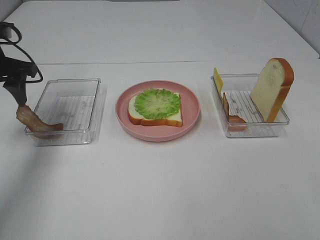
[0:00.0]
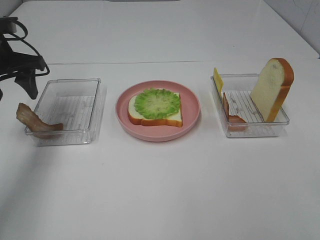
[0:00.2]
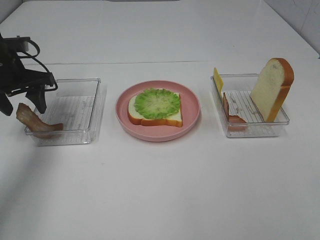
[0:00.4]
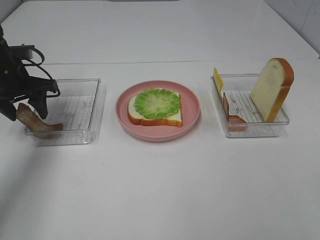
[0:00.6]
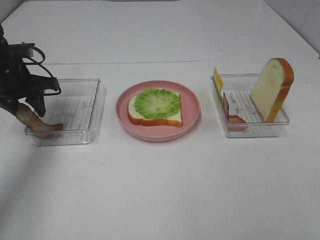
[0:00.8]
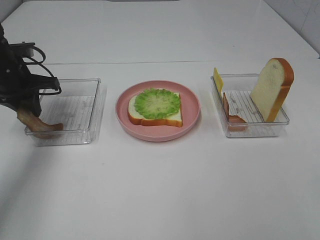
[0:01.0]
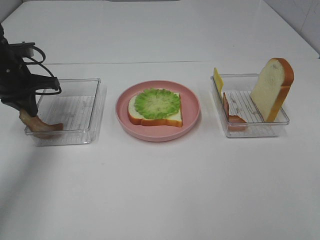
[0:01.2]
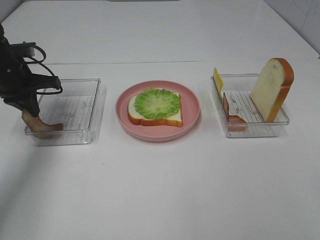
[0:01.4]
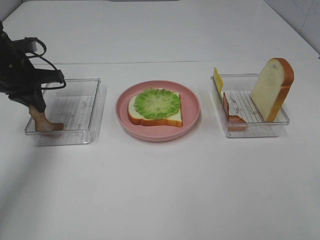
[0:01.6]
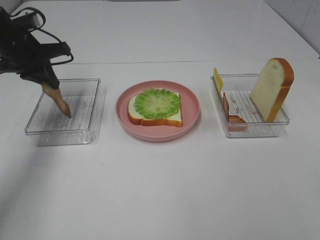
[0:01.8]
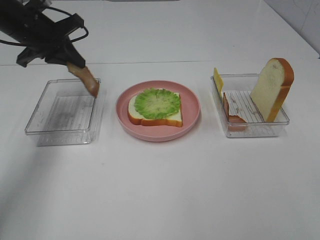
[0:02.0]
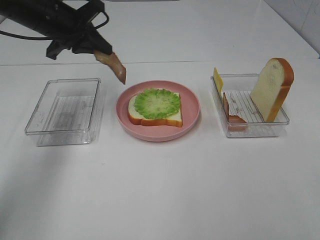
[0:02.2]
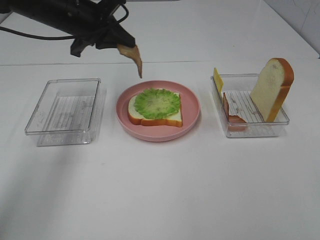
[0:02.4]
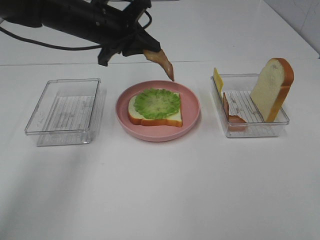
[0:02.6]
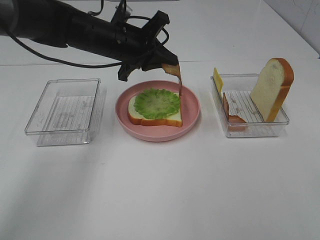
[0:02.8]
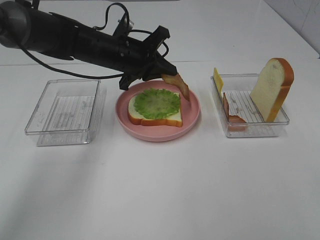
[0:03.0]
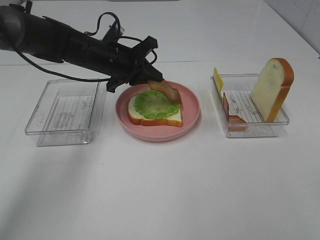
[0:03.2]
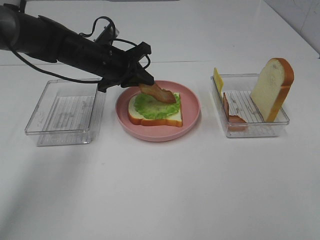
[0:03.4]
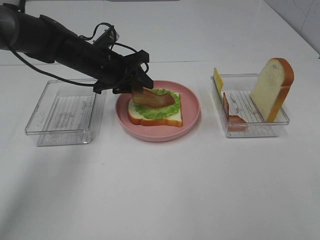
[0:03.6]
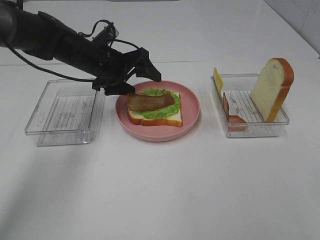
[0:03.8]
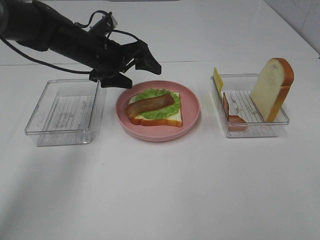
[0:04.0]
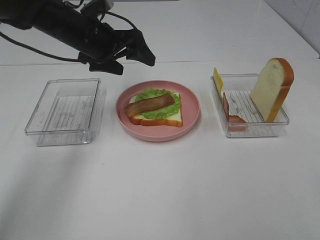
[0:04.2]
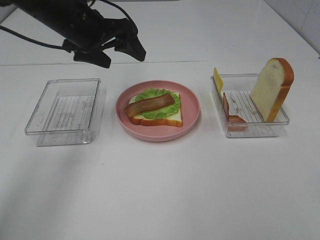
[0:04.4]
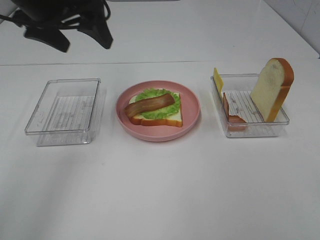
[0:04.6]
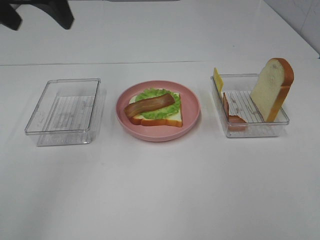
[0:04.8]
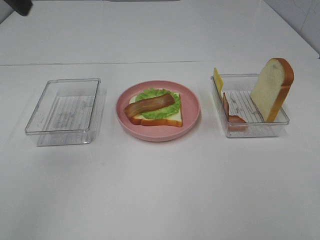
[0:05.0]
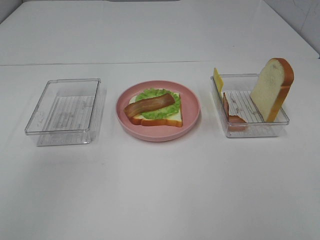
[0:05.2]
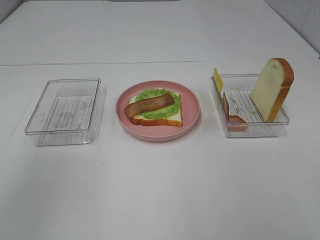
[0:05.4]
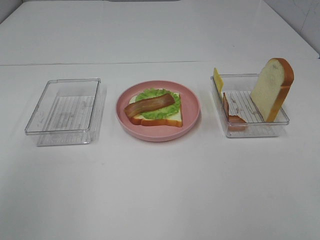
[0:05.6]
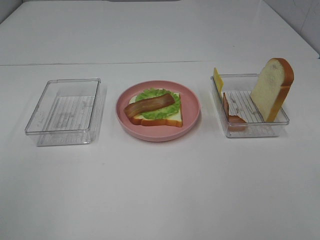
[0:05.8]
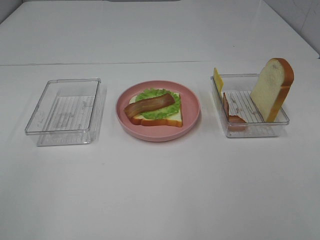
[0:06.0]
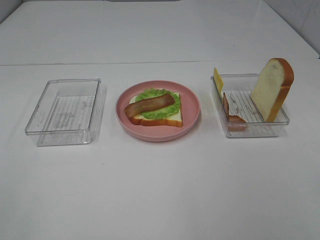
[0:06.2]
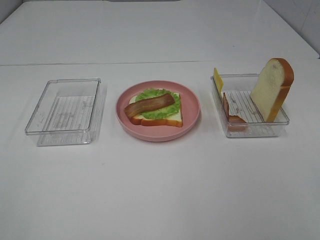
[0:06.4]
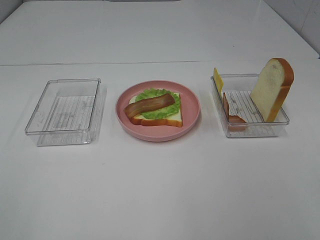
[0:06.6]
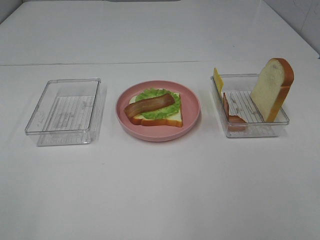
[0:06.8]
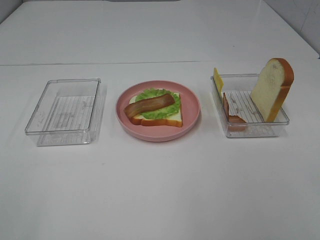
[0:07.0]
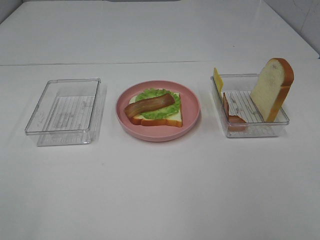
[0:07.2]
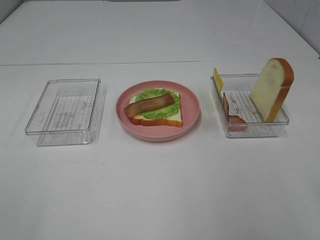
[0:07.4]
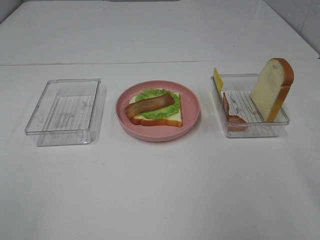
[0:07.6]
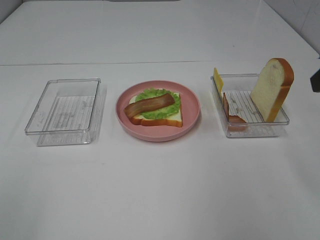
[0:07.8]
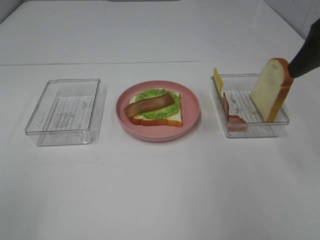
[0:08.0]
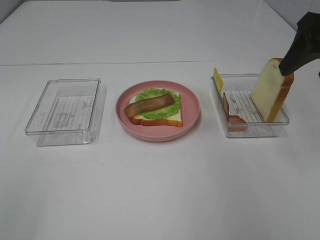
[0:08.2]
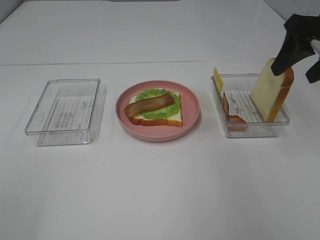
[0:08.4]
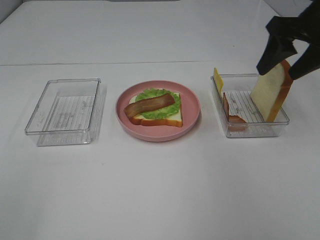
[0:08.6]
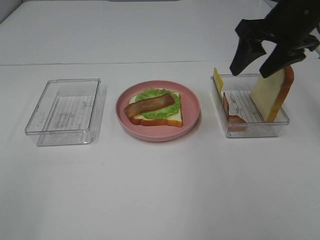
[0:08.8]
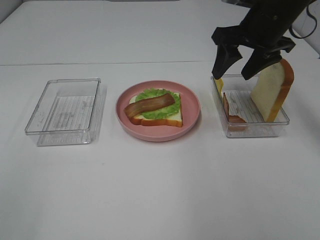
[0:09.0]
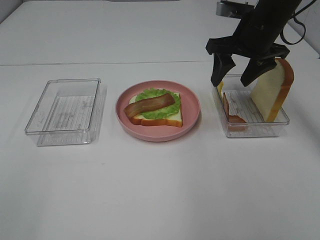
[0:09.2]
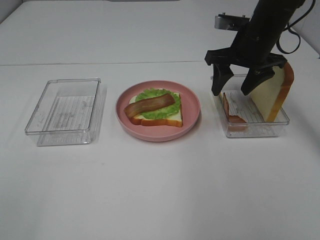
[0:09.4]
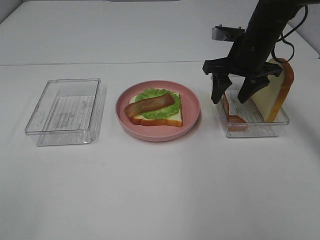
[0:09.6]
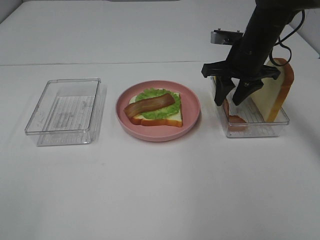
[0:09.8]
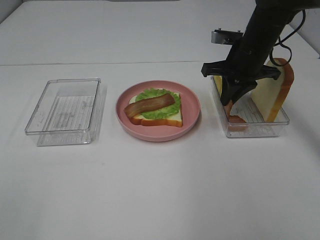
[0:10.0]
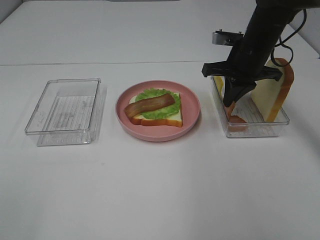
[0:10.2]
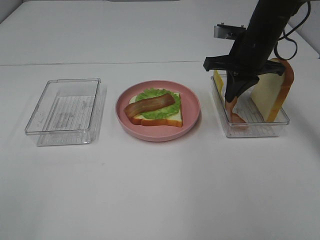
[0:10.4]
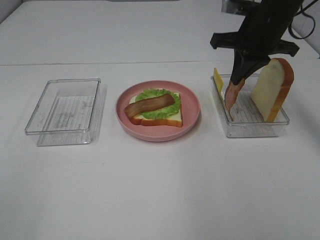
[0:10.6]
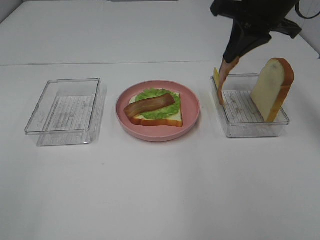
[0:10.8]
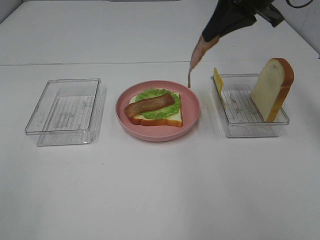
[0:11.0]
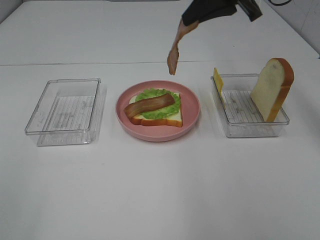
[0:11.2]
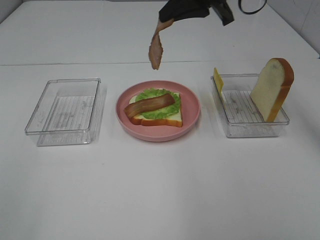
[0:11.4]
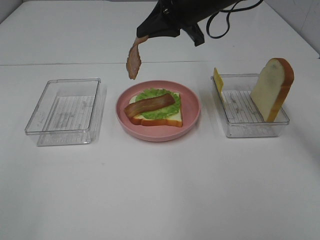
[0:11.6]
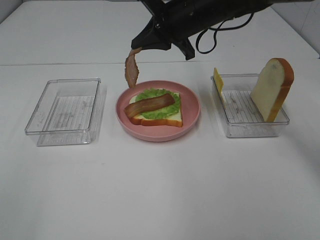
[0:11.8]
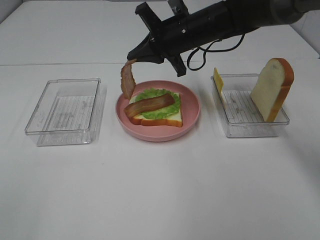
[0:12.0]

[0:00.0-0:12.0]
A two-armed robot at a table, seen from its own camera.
Task of the whole recording: Make sandwiches.
Step, 1.6 to 3.8 s: Left hand:place bacon on lettuce slice.
Step, 4.0 to 10.4 s: Right hand:grab the bacon.
0.0 to 1.6 s: The left gripper shifts by roughly 5 cm, and closes its fingers.
1.6 to 3.0 s: The left gripper goes approximately 20 cm to the right.
3.0 to 4.4 s: The left gripper heads upward and to the left, covering roughly 10 cm, and opens up.
4.4 to 6.0 s: The left gripper goes approximately 40 cm backward and to the left.
7.6 to 9.0 s: The right gripper moves forward and to the left, some 25 cm.
9.0 to 10.4 s: The right gripper closes.
10.4 to 12.0 s: The right gripper heads to the left, covering approximately 10 cm, and moves approximately 15 cm upward and comes back.

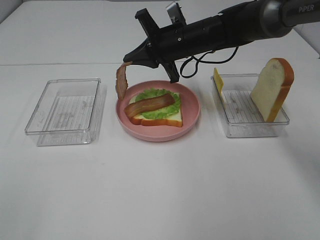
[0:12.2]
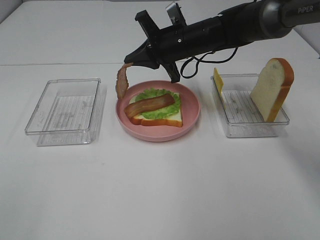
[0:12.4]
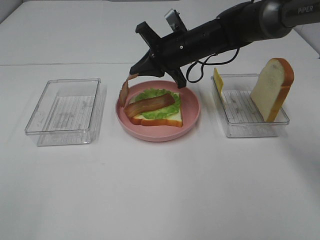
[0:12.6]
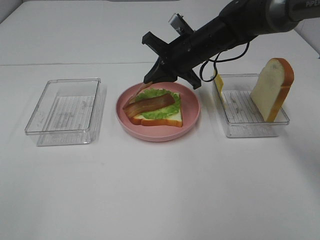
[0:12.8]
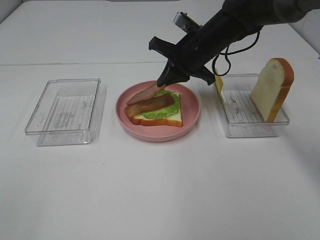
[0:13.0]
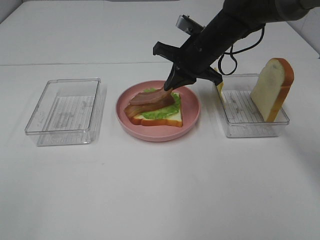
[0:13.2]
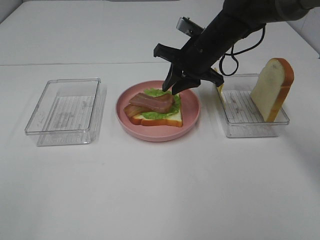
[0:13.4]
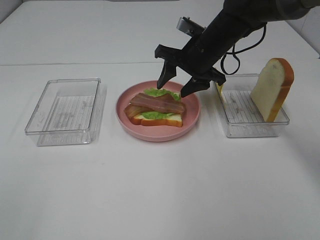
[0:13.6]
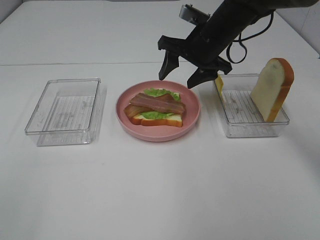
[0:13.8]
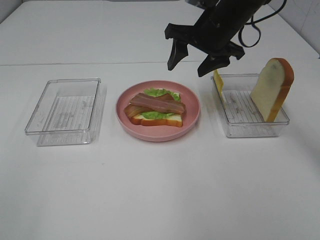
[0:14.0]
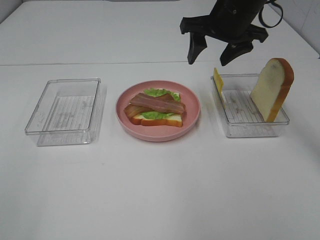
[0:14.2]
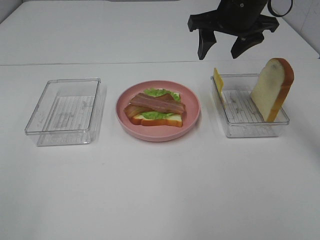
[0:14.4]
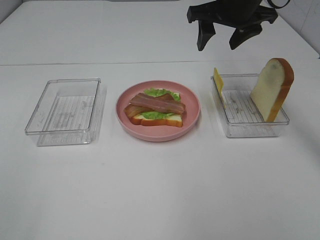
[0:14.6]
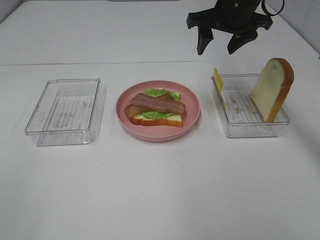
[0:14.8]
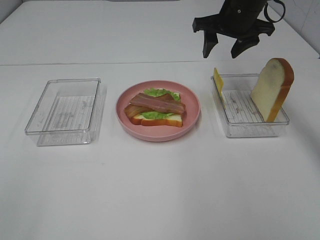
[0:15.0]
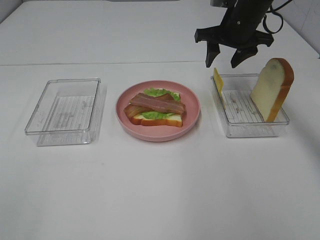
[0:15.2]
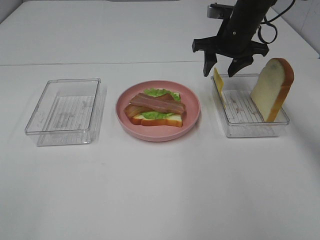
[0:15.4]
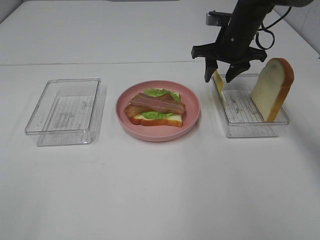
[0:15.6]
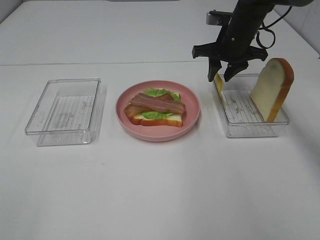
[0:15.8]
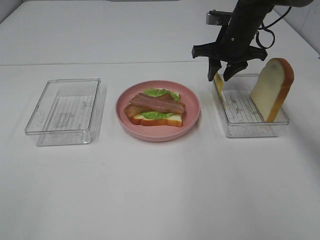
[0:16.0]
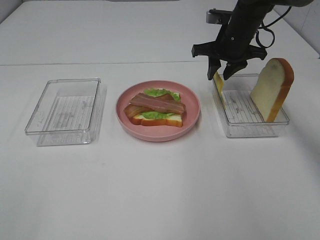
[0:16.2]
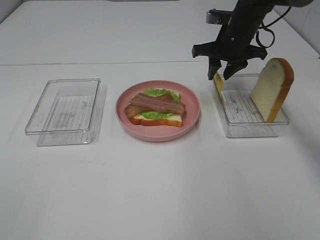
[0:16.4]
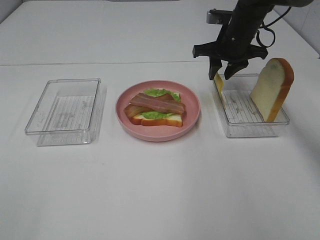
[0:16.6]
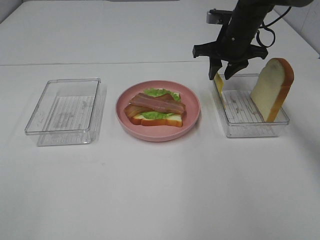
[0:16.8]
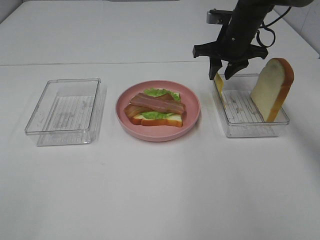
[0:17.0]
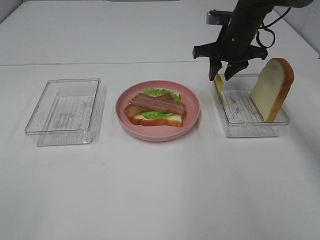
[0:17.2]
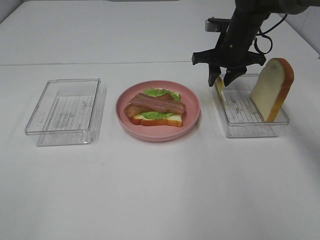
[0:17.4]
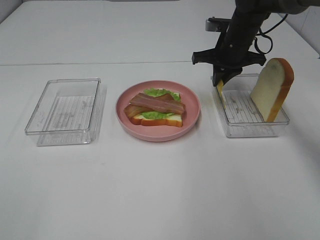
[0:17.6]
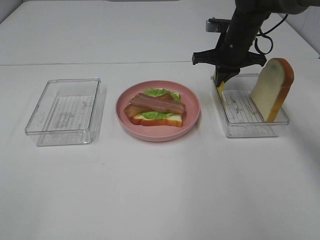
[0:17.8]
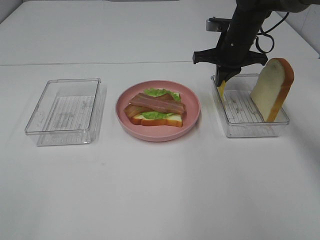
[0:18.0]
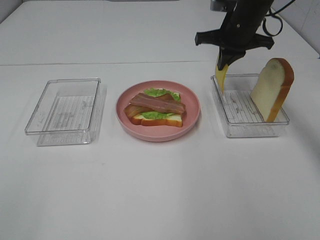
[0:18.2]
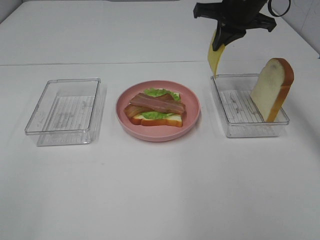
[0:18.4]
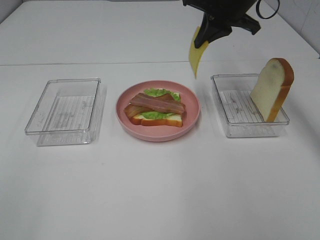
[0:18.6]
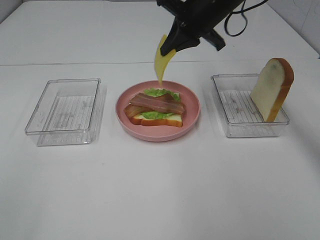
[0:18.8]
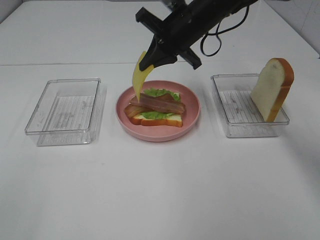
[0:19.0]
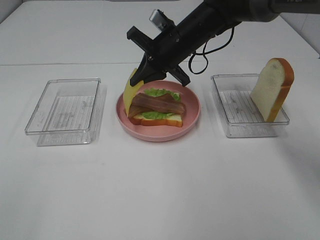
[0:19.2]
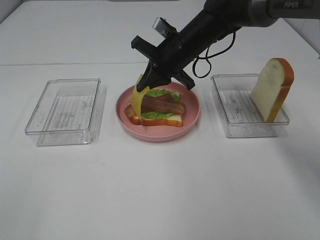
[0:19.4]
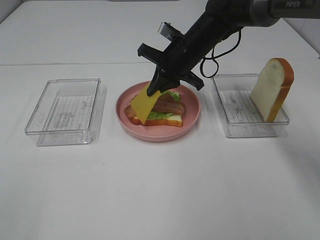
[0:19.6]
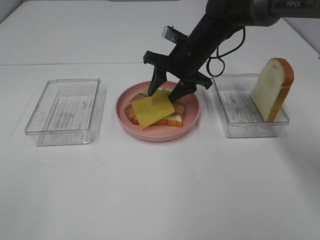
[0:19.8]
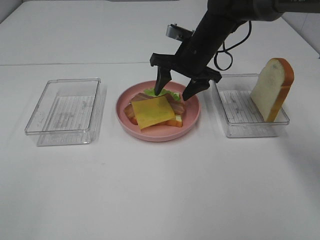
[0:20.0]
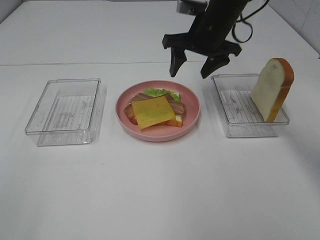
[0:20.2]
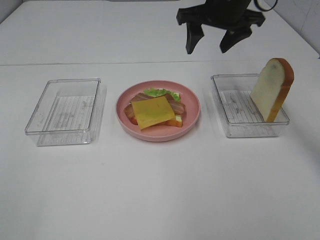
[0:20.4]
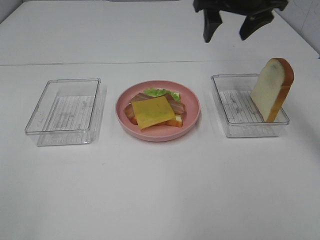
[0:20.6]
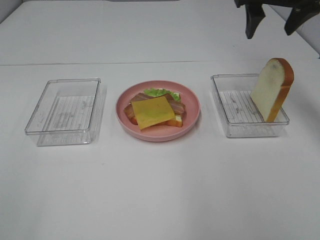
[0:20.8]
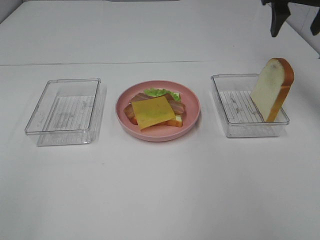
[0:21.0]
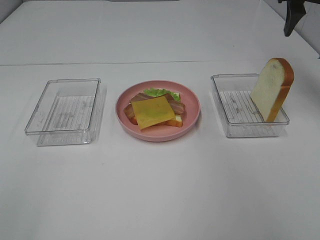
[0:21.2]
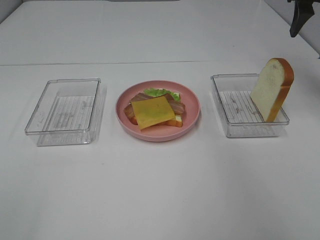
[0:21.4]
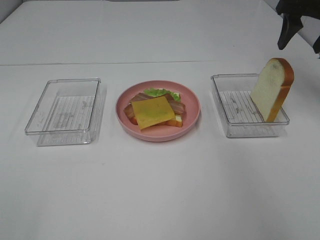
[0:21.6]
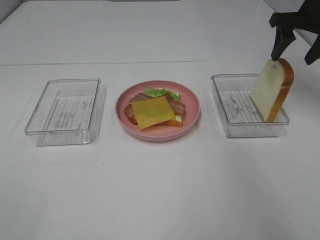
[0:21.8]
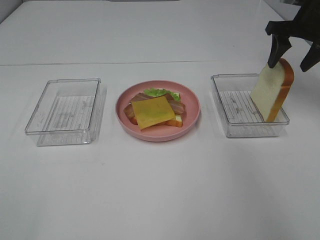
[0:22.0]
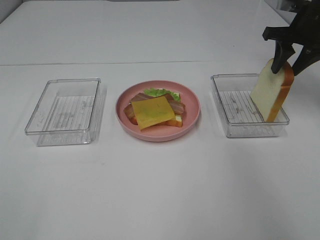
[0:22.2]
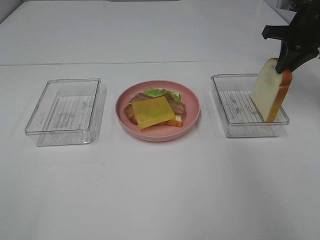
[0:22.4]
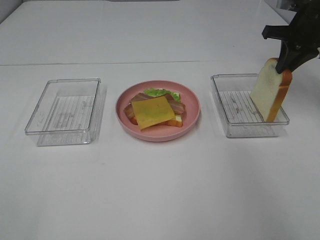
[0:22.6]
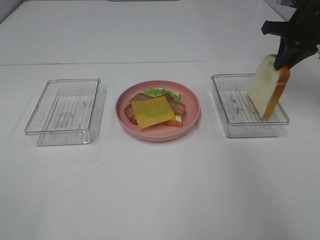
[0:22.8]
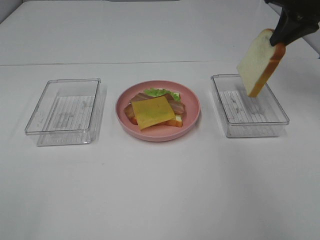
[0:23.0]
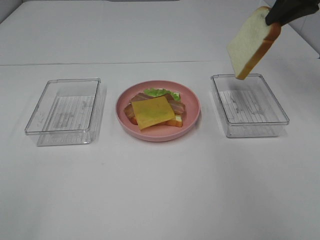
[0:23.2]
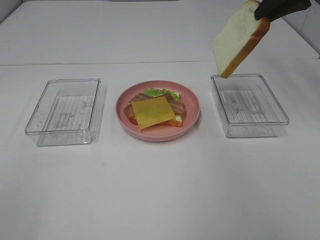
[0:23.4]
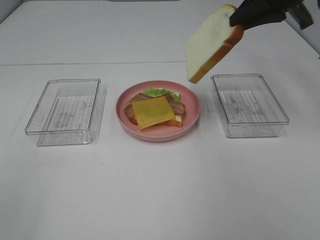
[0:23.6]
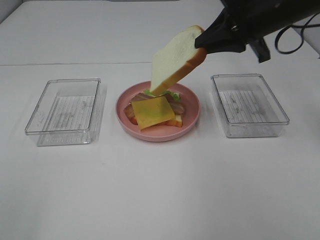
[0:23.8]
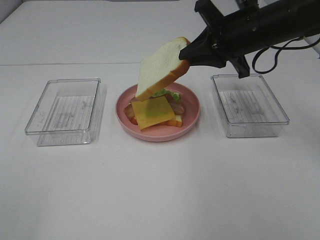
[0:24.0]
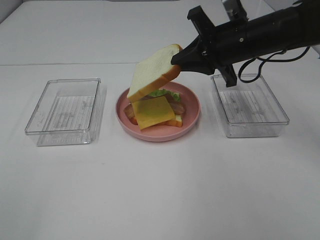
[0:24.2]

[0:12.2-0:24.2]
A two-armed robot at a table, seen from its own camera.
Task of the whole recording: Make sandwiches.
Step, 12.2 to 14.0 s: Right hand:place bacon on bacon.
Step, 14.2 to 17.8 s: Right hand:grab the cheese slice.
Step, 18.0 to 20.0 s: Right hand:place the cheese slice on top of the bacon.
Step, 20.2 to 22.6 s: Right hand:grab the bread slice.
12.2 to 13.8 s: The right gripper shifts by some 5 cm, and opens.
13.8 to 15.2 s: The right gripper is displaced to the right by about 5 cm.
15.2 to 16.6 s: There are only small adjustments of the grippers.
16.6 to 18.2 s: The right gripper closes its fingers.
18.2 to 19.8 s: The right gripper is displaced to the left and downward by about 10 cm, and opens its fingers.
19.8 to 21.2 s: The right gripper heads to the right and upward, covering about 25 cm.
21.2 to 22.6 s: The right gripper goes some 10 cm downward, and closes its fingers.
22.6 to 24.2 s: The right gripper goes roughly 15 cm to the left and backward.
